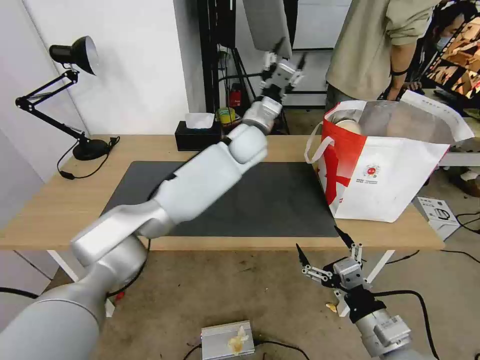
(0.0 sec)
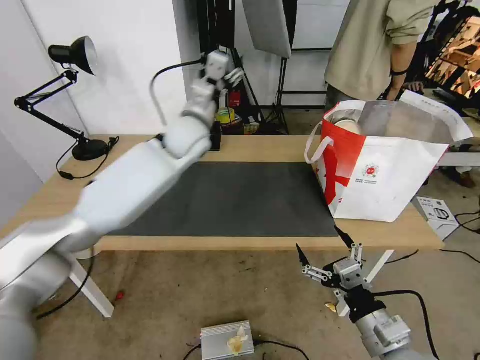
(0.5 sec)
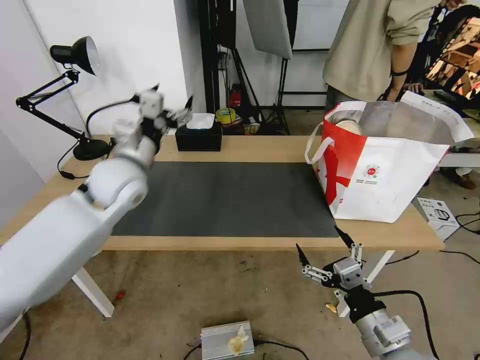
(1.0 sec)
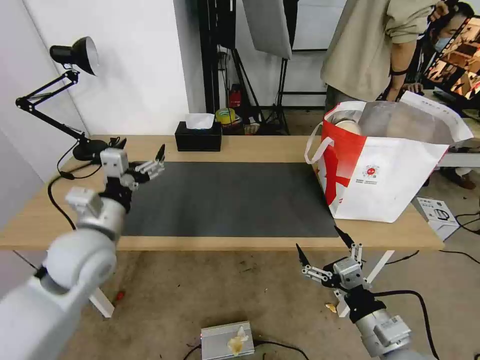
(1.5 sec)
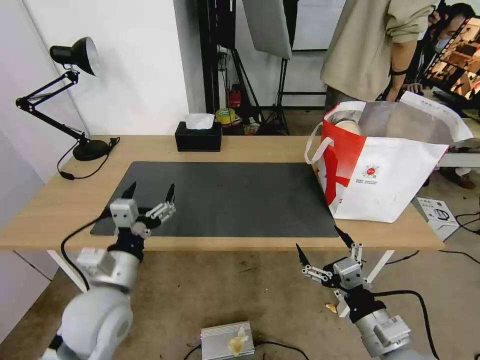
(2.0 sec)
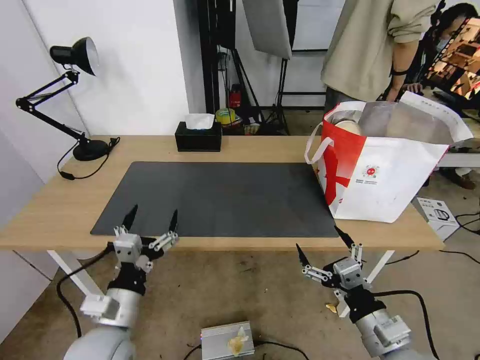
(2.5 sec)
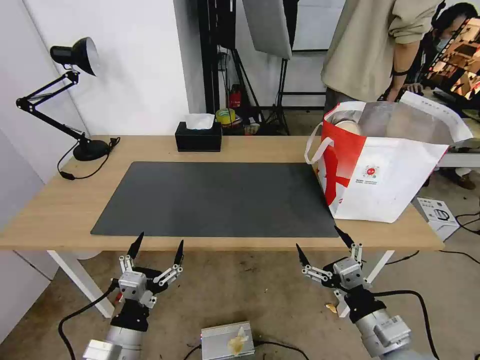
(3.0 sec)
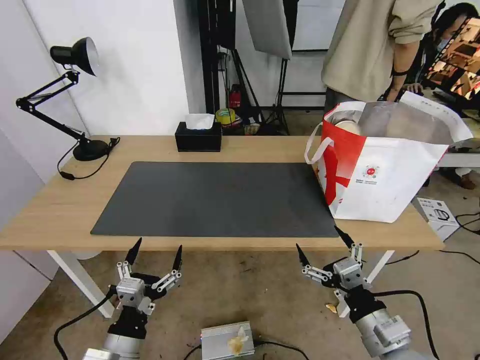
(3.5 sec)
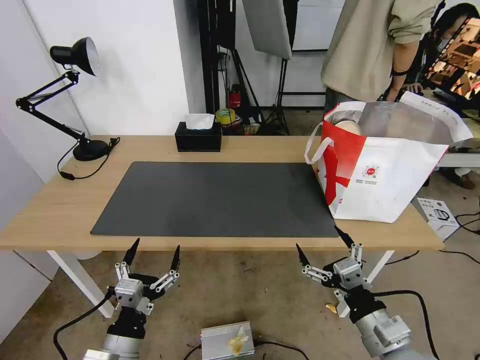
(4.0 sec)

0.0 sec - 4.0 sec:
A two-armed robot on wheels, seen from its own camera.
Task of the whole recording: Pick up the trash from the table and place it into the takeout bag.
0.0 sec - 2.0 sec: The left gripper moves backward and to the left, roughly 40 cm.
2.0 sec - 4.0 sec: The left gripper goes roughly 15 cm backward and downward.
